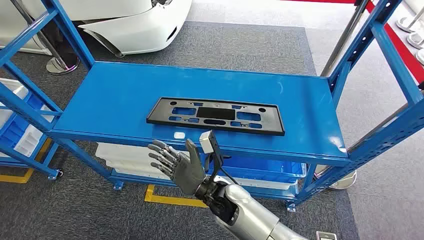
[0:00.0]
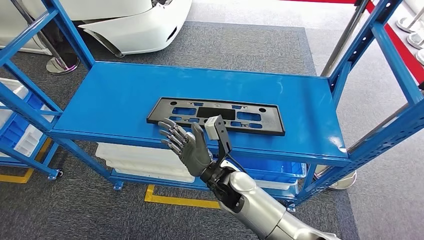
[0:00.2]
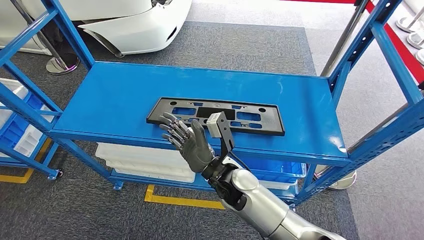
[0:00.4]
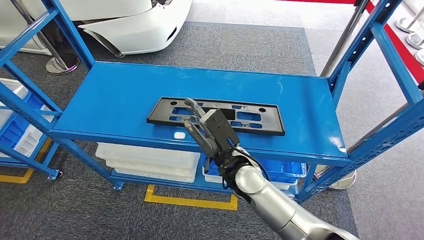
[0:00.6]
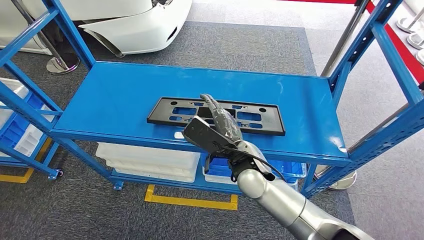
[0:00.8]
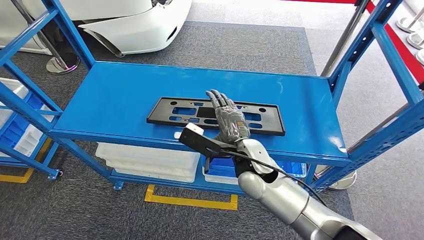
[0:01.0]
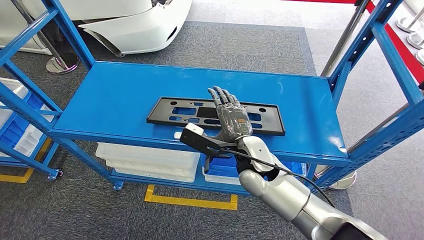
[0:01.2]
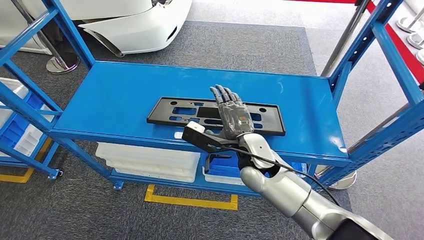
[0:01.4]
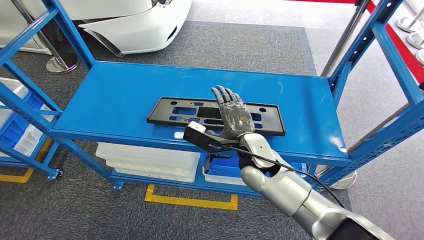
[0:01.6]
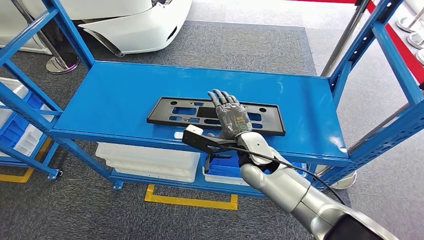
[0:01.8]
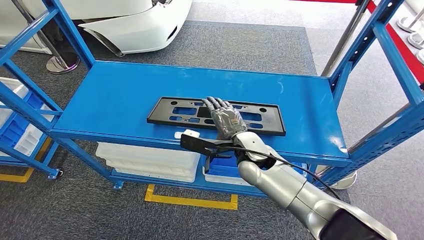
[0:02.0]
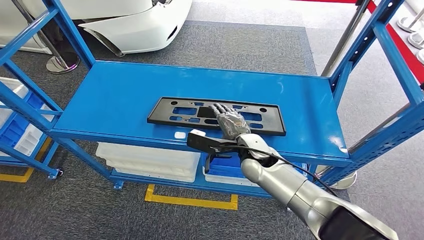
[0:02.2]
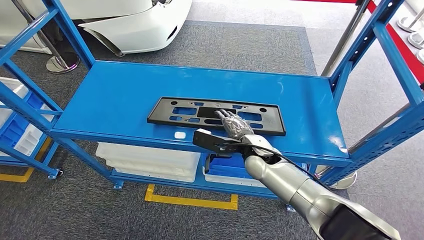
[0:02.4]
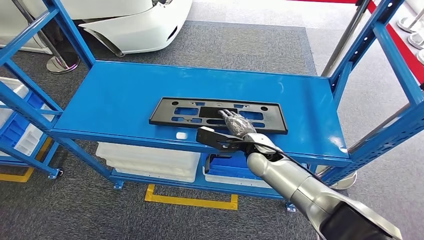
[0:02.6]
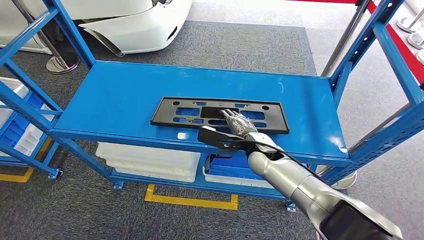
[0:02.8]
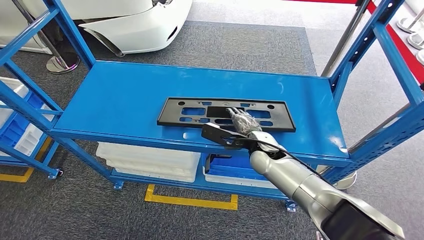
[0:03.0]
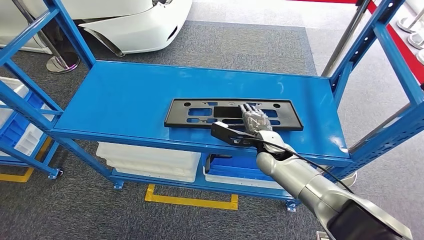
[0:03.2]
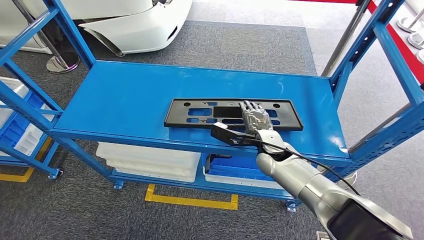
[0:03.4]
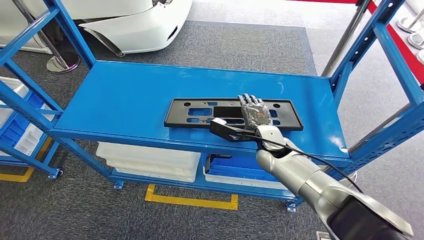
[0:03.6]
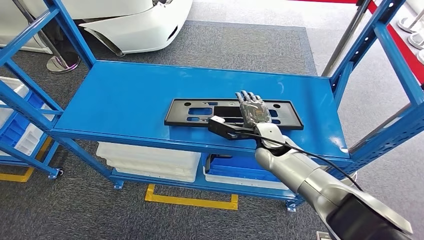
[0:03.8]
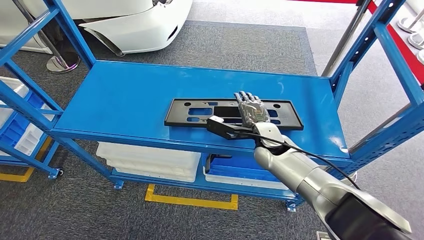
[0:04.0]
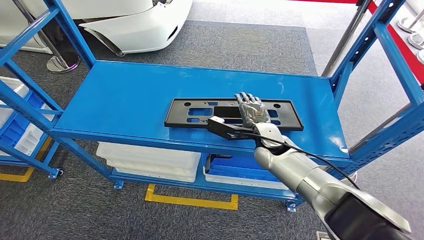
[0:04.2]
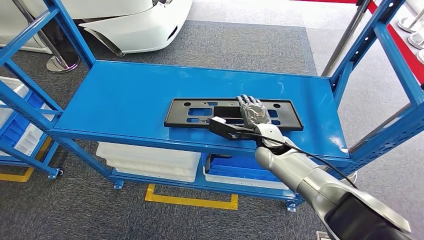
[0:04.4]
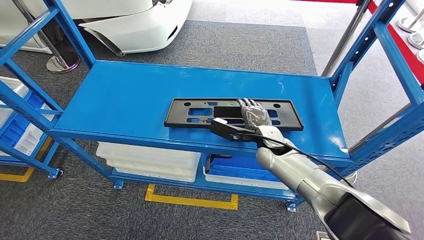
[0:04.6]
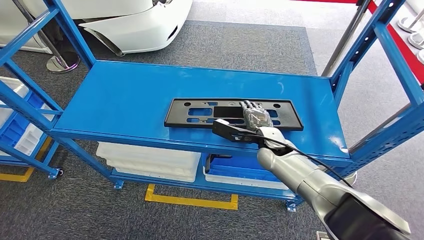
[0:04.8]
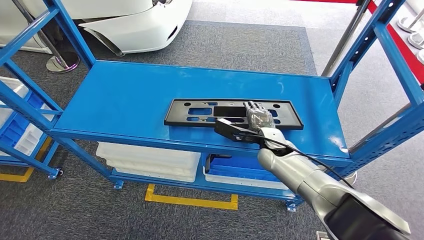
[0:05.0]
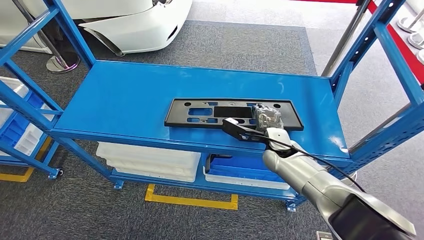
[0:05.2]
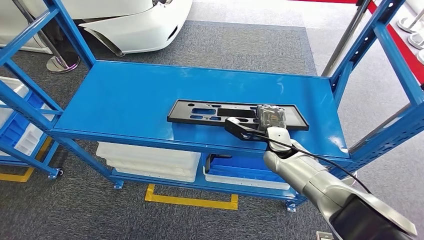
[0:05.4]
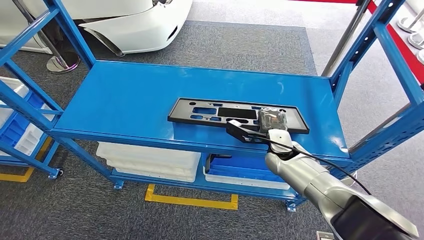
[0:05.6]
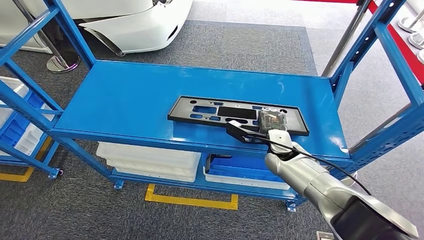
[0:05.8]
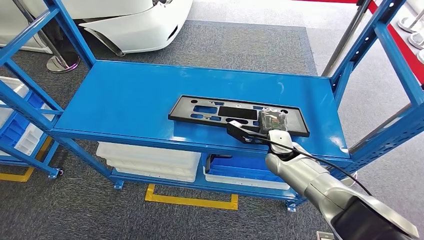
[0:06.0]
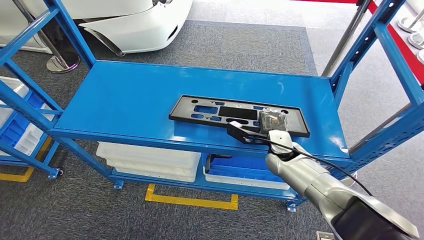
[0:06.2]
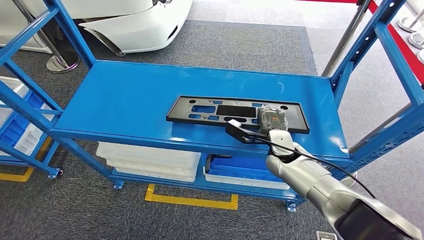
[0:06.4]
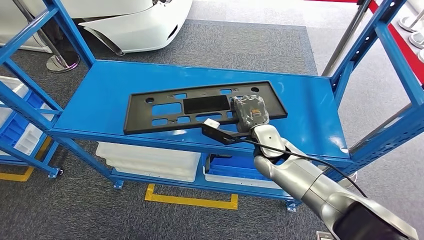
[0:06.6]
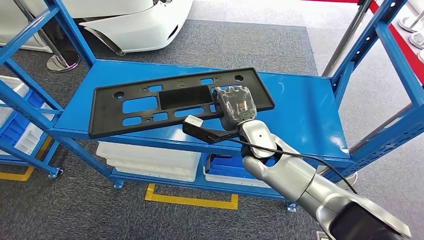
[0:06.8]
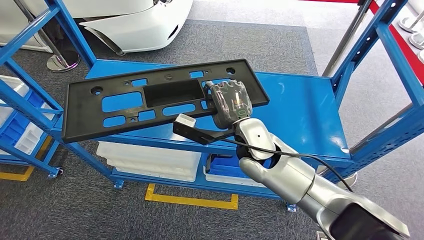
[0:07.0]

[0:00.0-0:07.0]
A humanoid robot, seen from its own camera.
Step, 0:00.0 to 0:07.0: Pick up the large material from the shelf.
0:01.4 to 0:02.8: The right hand heads to the right, covering about 5 cm.
0:04.2 to 0:05.6: The right hand ends up approximately 5 cm from where it was.
